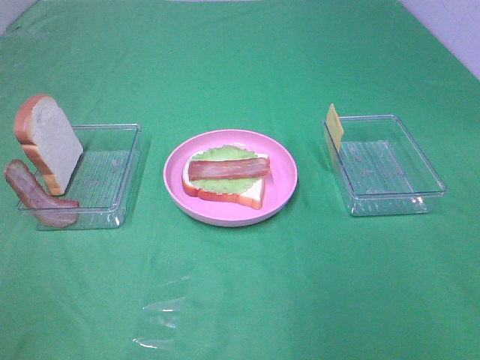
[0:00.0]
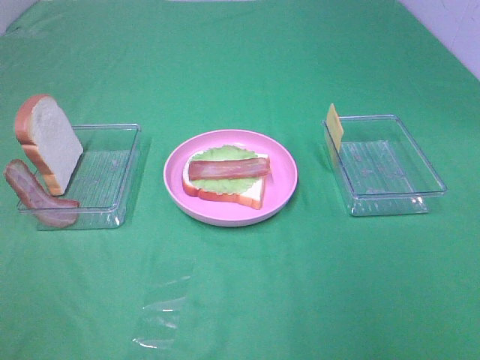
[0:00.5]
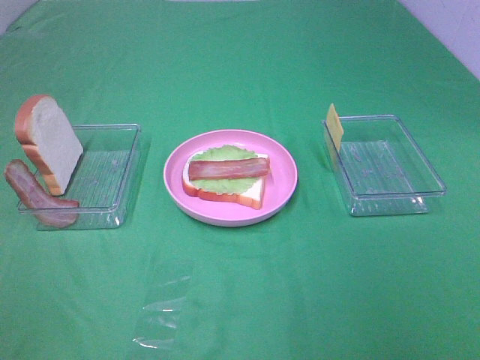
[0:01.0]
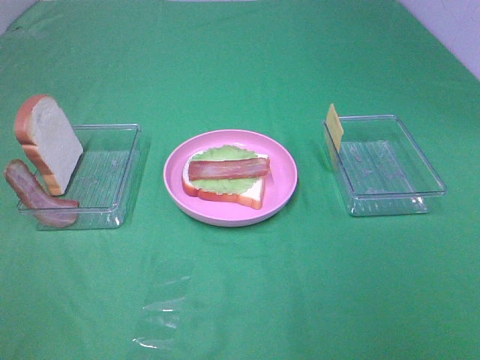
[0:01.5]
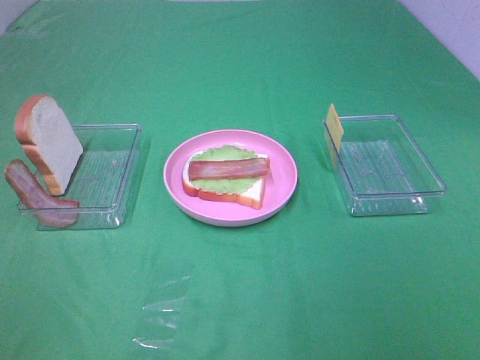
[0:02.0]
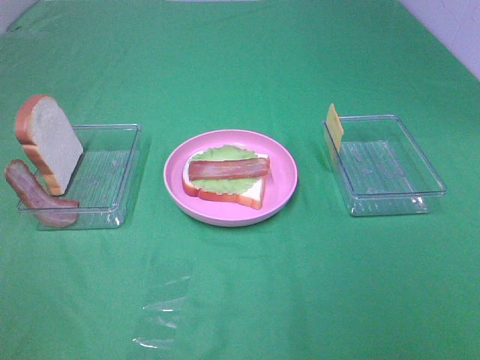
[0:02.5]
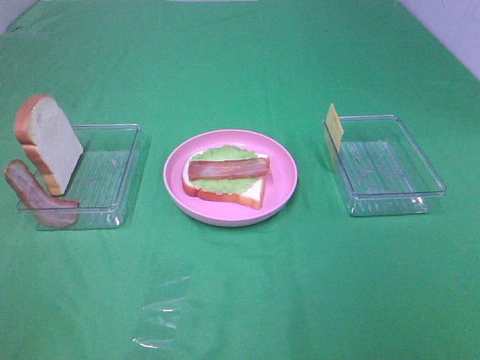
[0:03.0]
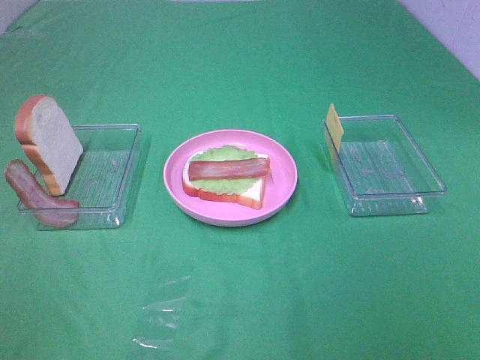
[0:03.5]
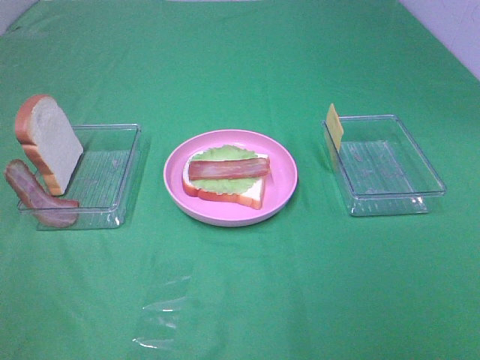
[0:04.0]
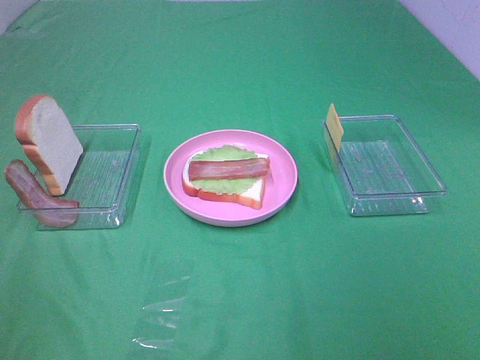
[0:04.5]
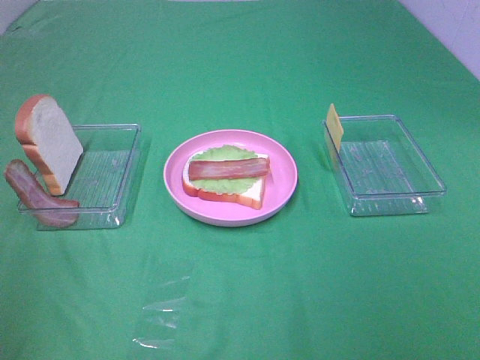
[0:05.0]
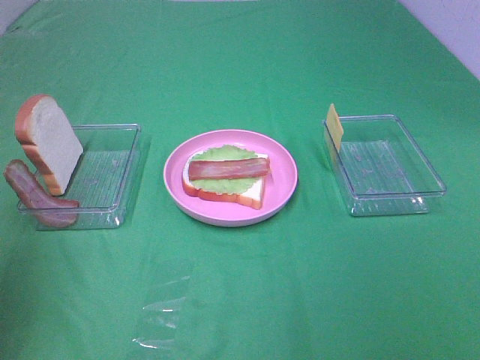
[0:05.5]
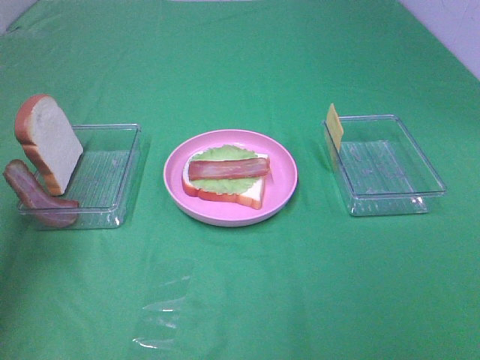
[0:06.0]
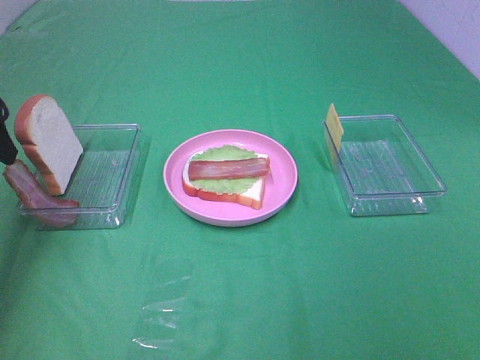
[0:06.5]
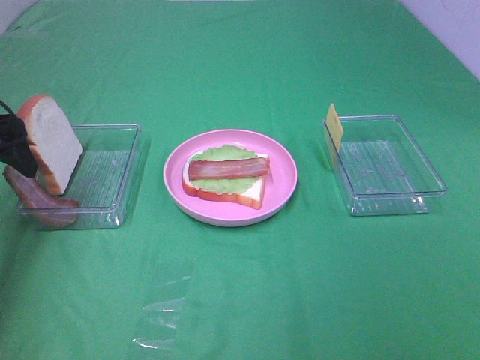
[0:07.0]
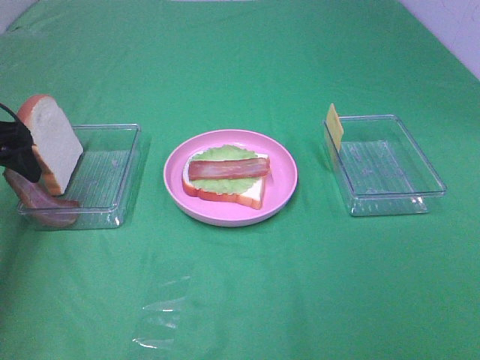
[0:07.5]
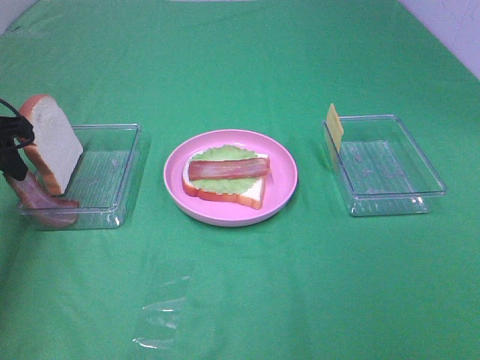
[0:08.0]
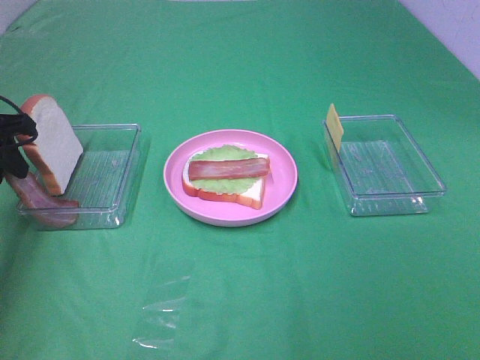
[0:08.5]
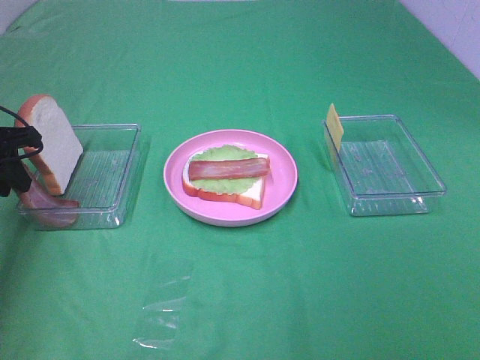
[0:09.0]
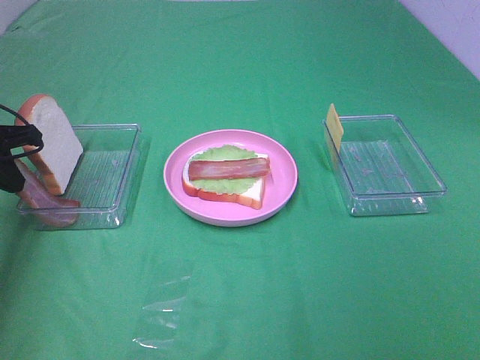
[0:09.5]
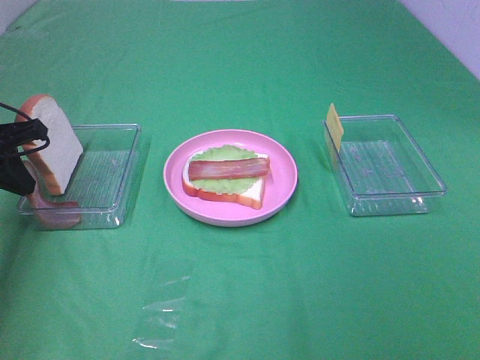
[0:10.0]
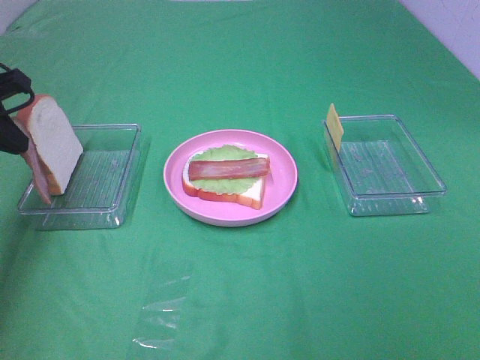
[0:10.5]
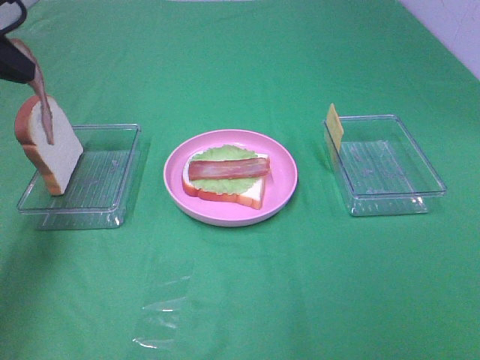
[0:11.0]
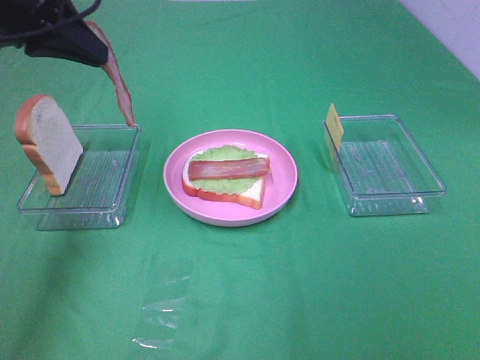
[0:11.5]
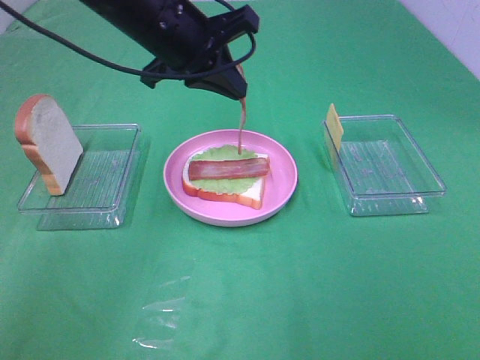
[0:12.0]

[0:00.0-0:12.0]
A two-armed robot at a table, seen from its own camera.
Task of the whole recording: Make sandwiches.
0:04.0 to 0:06.0: The left gripper shifts about 30 cm forward.
0:06.0 to 0:08.0: The left gripper is displaced downward and forward by some 10 cm, and closes.
0:08.0 to 0:10.0: The left gripper closes.
0:10.0 to 0:12.0: The left gripper goes about 25 cm to the right.

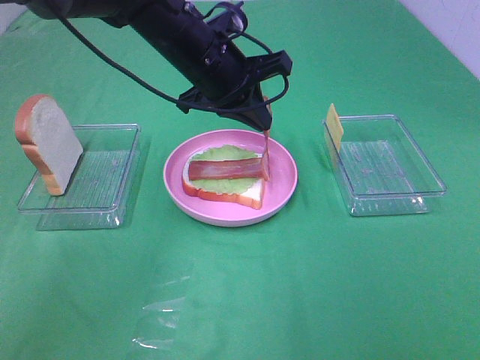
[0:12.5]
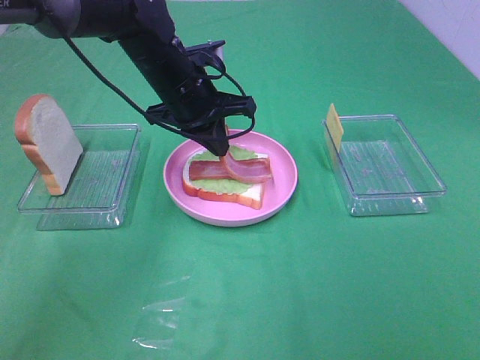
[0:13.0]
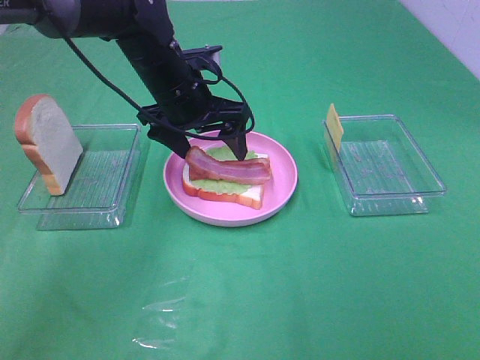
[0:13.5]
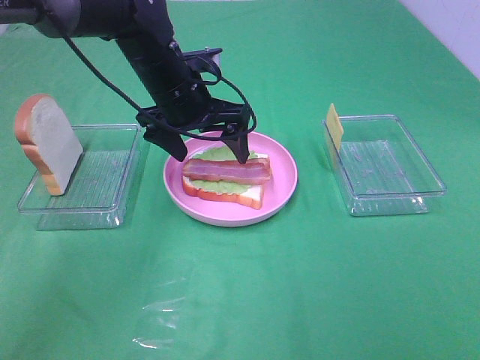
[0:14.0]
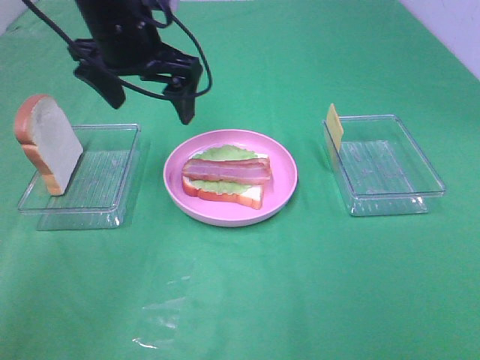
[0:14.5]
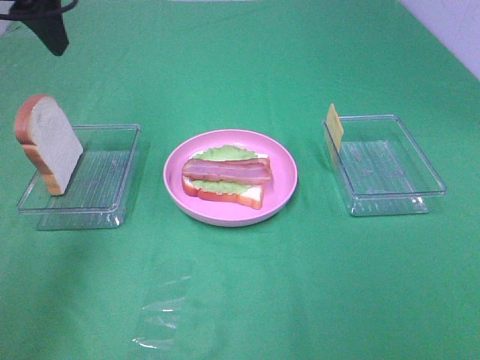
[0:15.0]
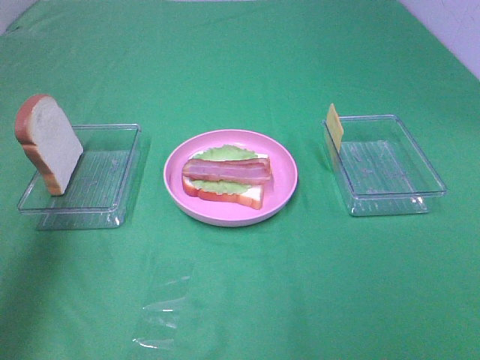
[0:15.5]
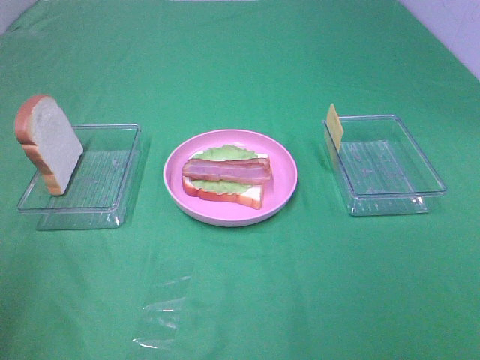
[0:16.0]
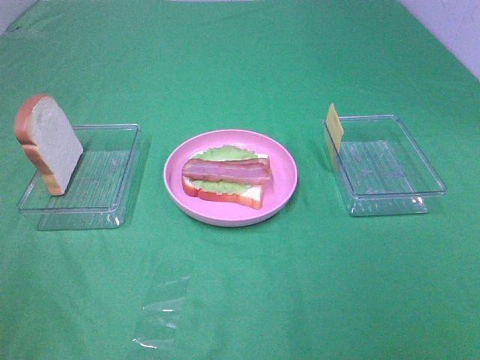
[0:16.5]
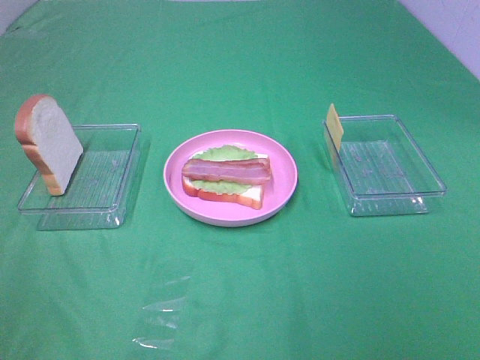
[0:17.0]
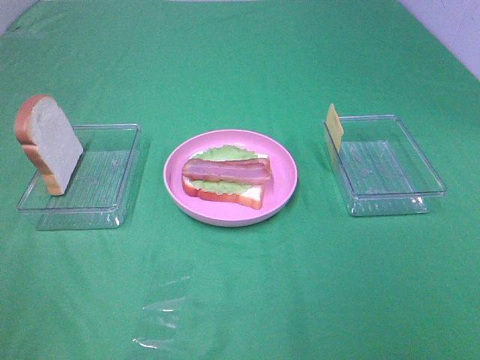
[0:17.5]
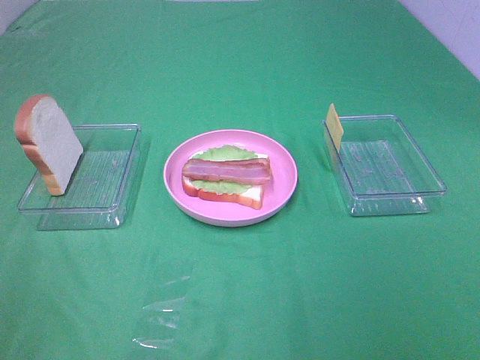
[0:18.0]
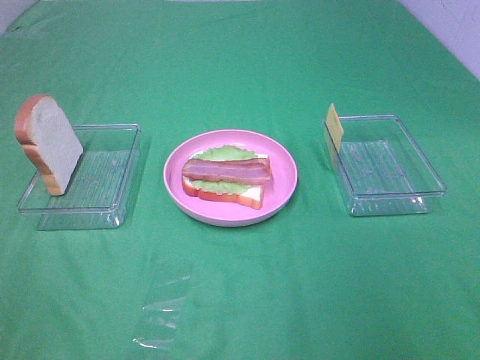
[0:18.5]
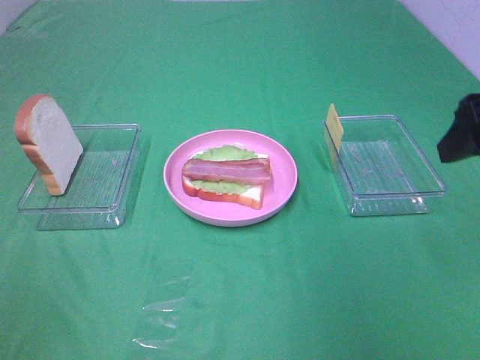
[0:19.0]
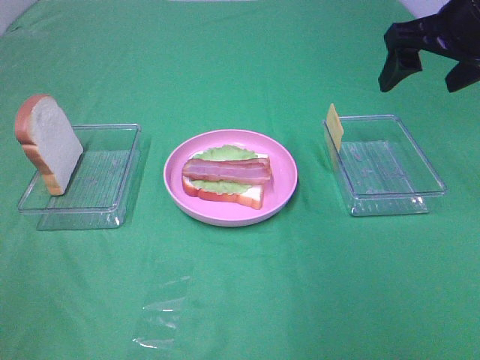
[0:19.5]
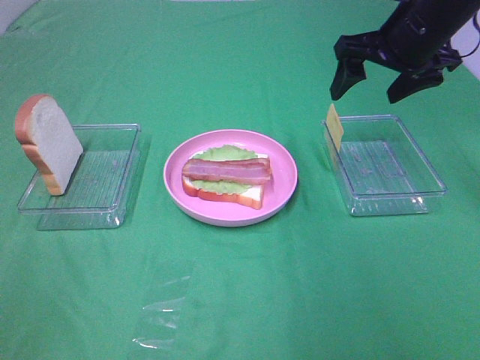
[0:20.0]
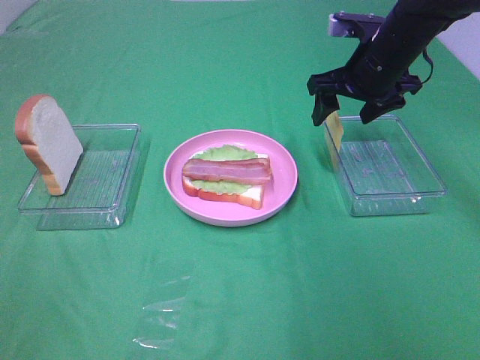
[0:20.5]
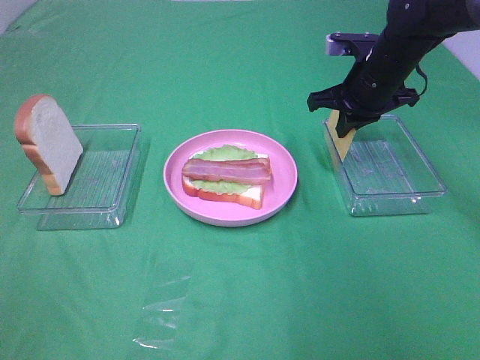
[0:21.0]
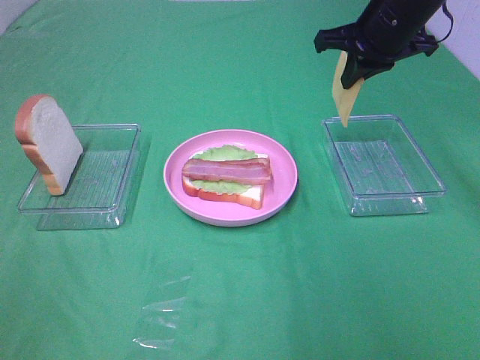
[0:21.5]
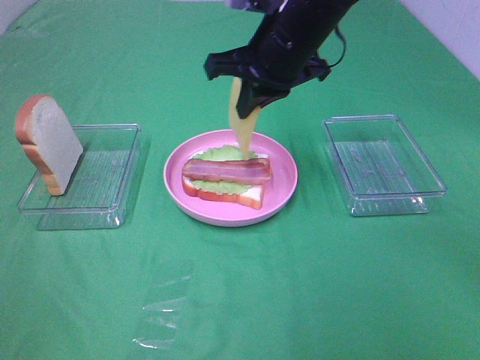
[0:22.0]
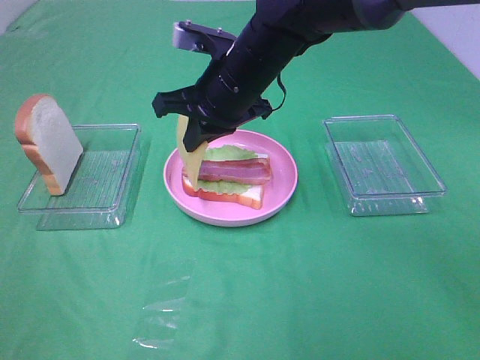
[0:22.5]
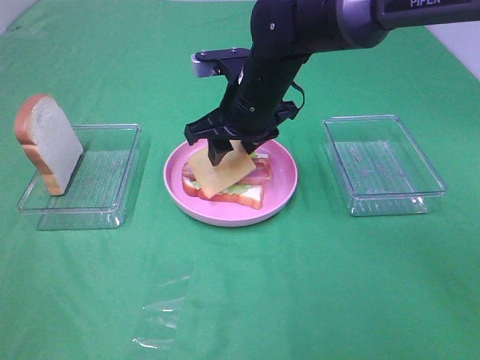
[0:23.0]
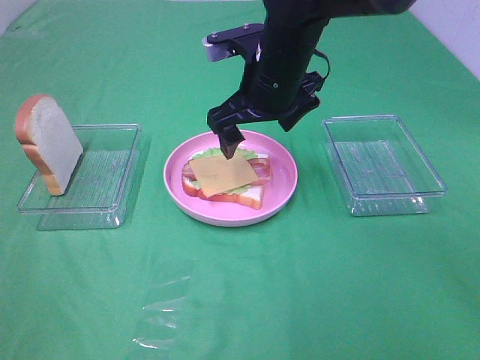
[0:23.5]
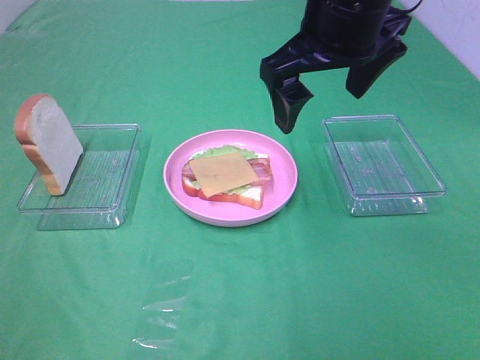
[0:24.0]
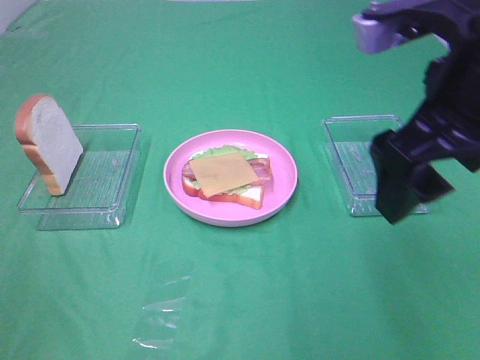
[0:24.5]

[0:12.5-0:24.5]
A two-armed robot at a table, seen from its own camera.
Task of the whole recording: Make sandwiches.
Step, 0:14.0 to 0:20.5: Right hand:grab the cheese slice.
Step, 0:21.0 to 0:23.0: Right hand:place the cheese slice on top of the bacon.
0:12.5 to 0:14.5: The left gripper shifts about 10 cm to the left and upward, and opens up.
0:14.5 to 0:16.5: The left gripper is displaced backward and to the left by some 40 cm.
0:18.5 to 0:20.5: The right gripper goes some 35 cm forward.
0:20.5 to 0:22.5: The right gripper shifts about 20 cm to the left, and closes.
0:22.5 to 0:24.5: The right gripper travels backward, to the right and upward by about 25 cm, and opens.

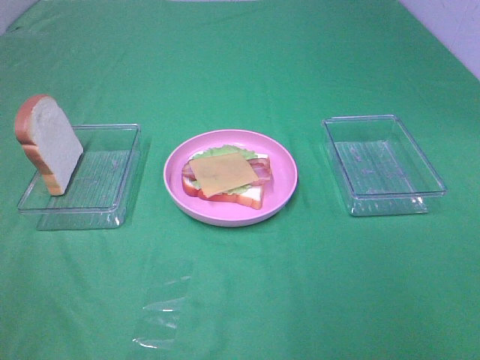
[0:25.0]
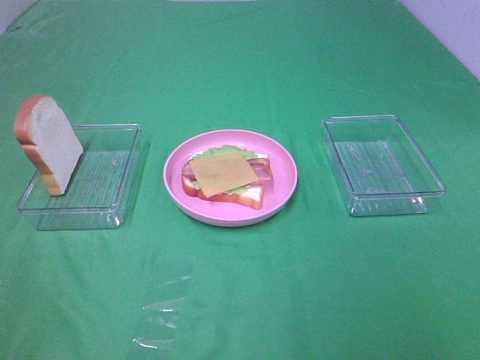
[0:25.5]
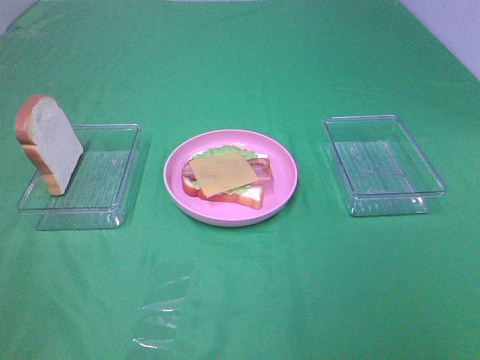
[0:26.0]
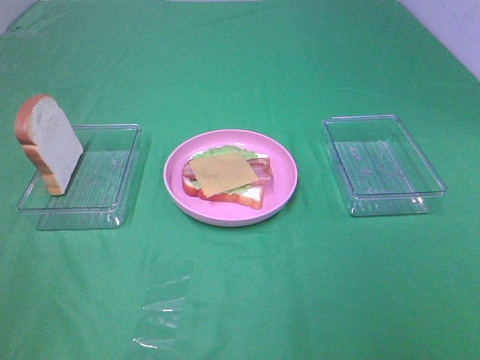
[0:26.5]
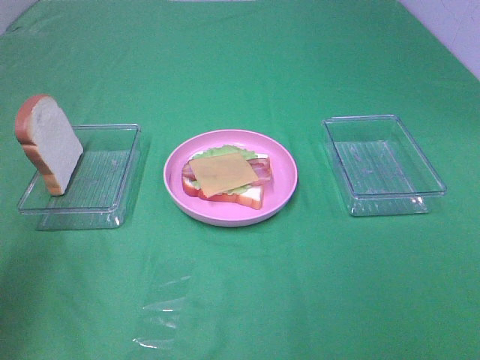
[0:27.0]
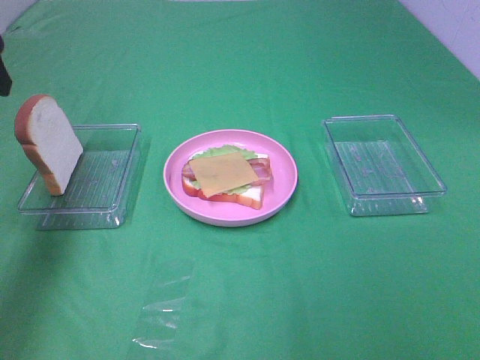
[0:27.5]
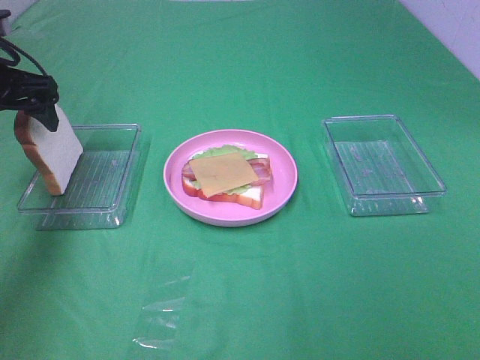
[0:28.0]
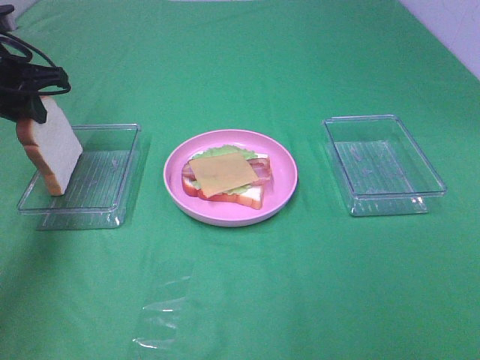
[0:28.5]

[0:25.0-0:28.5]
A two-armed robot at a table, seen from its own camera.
Task of the whole recording: Make sandwiches.
Step, 0:25.0 to 0:28.5: Left hand:grab the bread slice.
0:25.0 to 0:27.0: The left gripper shifts roughly 15 cm forward.
0:27.0 to 0:28.5: The left gripper is displaced forward and downward by some 25 cm, and closes its fingers.
